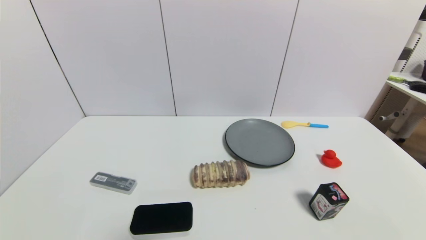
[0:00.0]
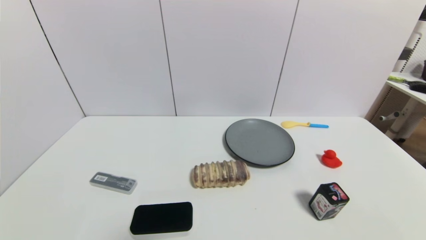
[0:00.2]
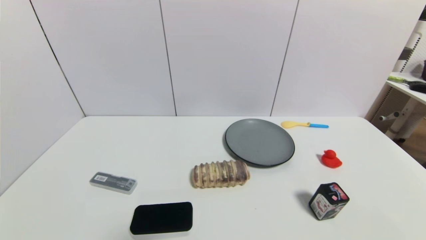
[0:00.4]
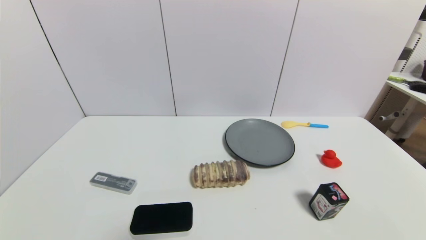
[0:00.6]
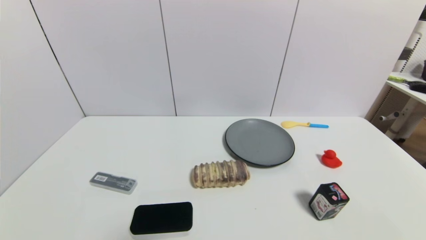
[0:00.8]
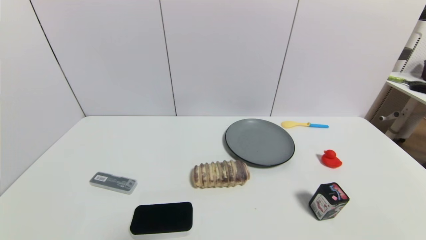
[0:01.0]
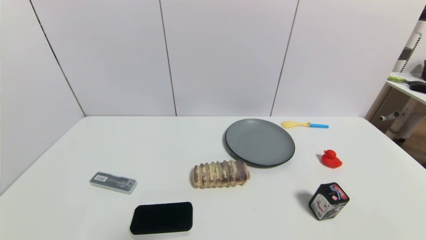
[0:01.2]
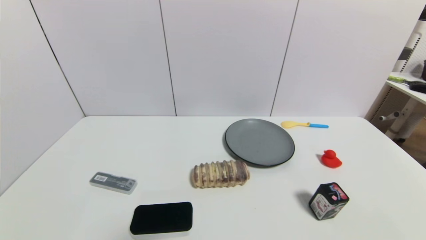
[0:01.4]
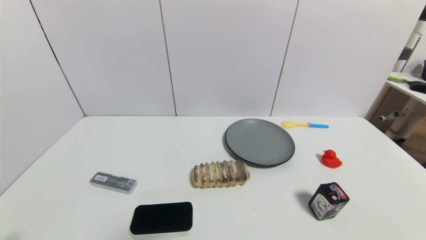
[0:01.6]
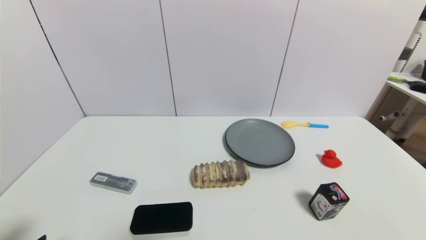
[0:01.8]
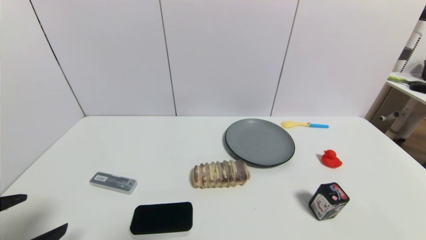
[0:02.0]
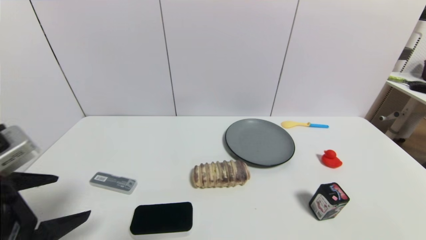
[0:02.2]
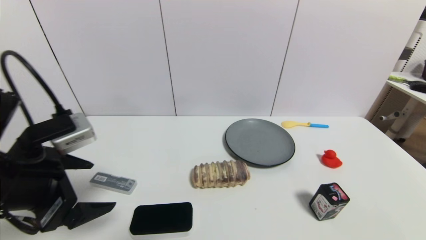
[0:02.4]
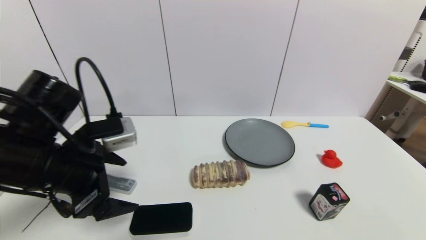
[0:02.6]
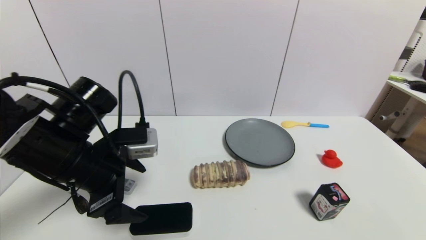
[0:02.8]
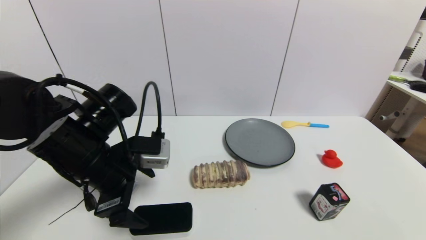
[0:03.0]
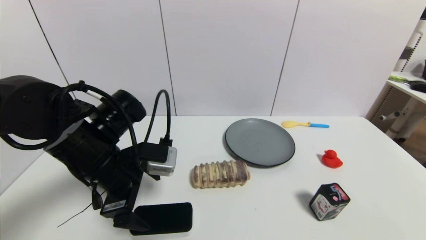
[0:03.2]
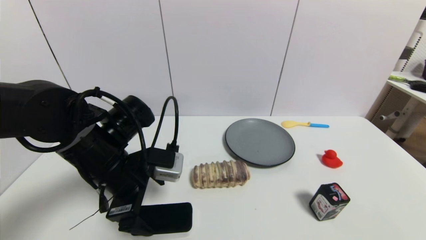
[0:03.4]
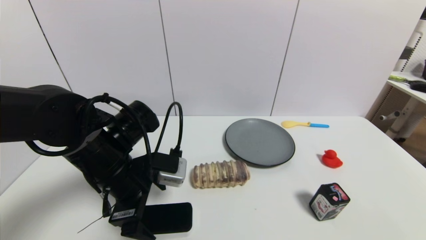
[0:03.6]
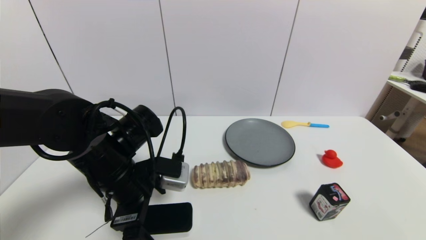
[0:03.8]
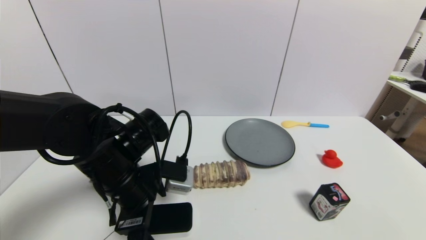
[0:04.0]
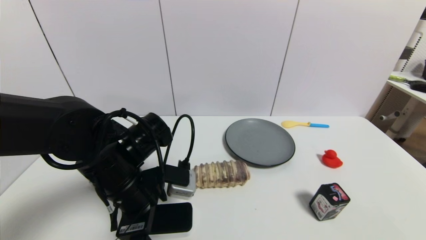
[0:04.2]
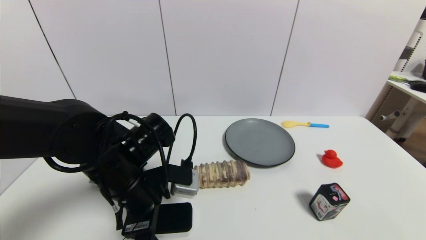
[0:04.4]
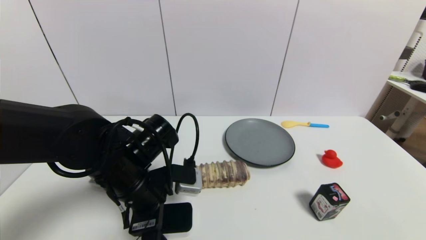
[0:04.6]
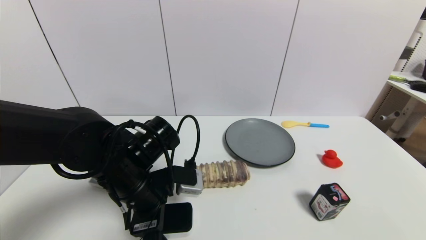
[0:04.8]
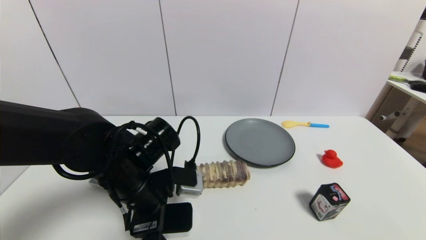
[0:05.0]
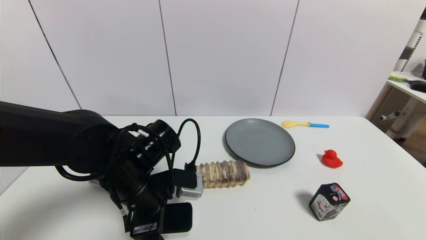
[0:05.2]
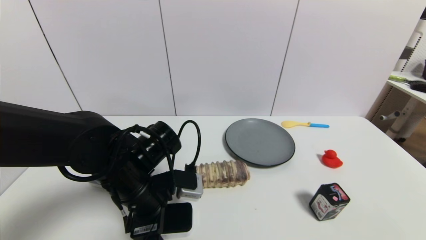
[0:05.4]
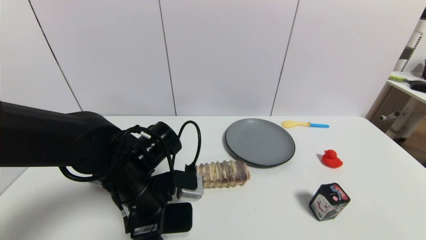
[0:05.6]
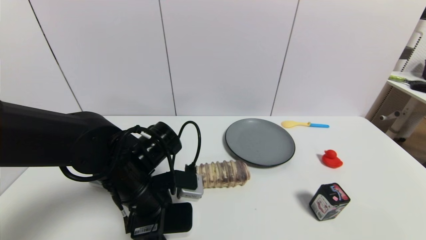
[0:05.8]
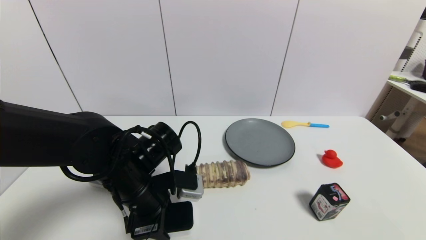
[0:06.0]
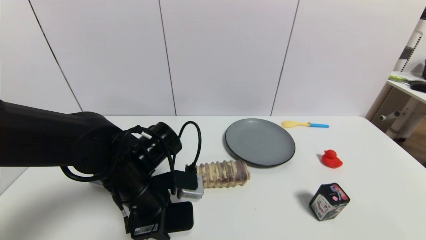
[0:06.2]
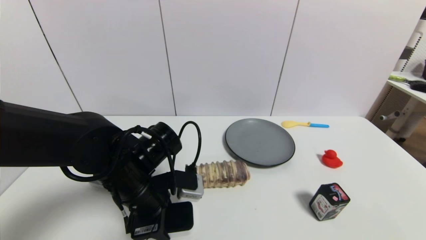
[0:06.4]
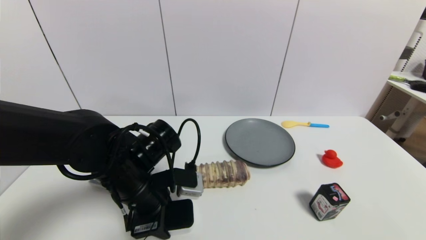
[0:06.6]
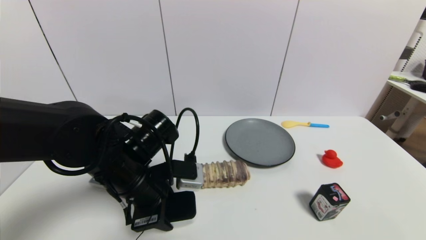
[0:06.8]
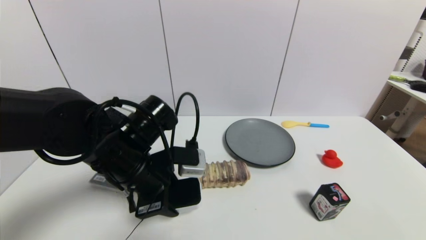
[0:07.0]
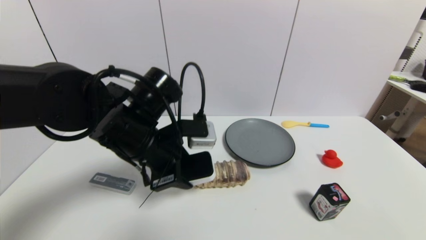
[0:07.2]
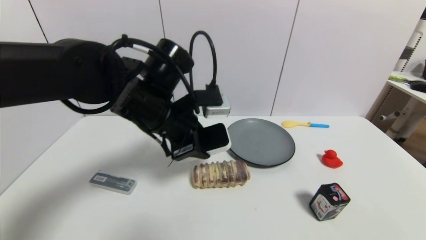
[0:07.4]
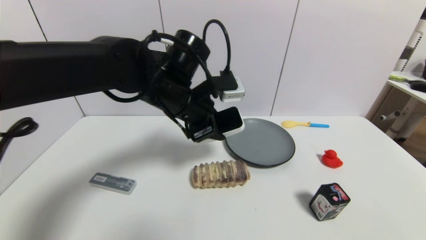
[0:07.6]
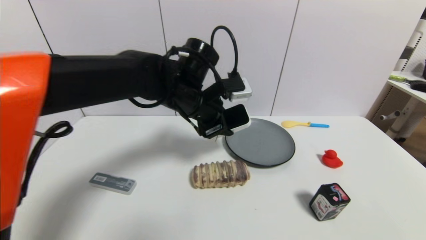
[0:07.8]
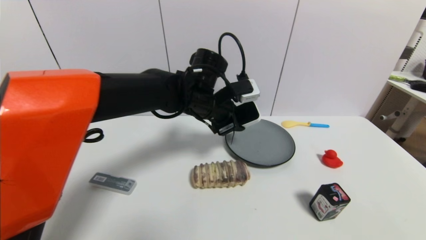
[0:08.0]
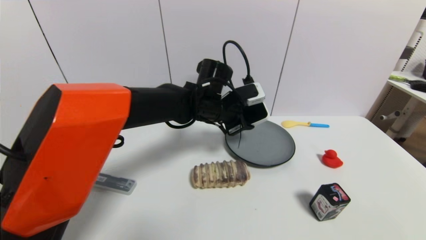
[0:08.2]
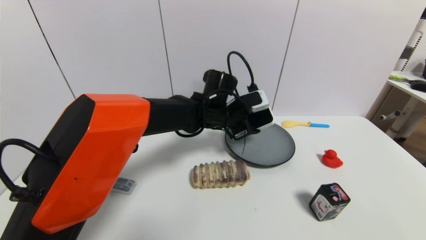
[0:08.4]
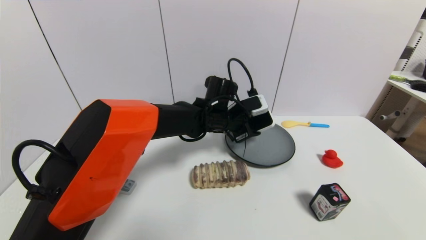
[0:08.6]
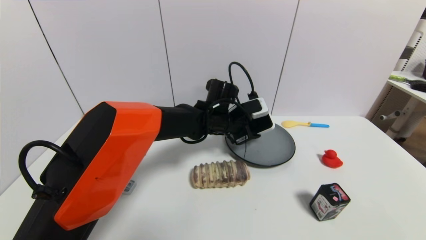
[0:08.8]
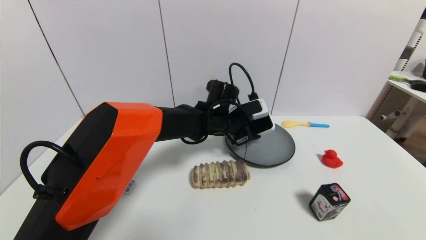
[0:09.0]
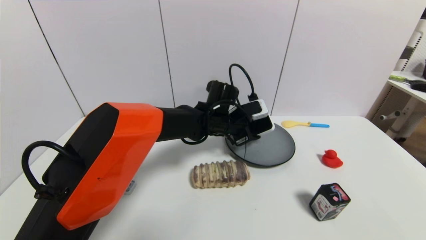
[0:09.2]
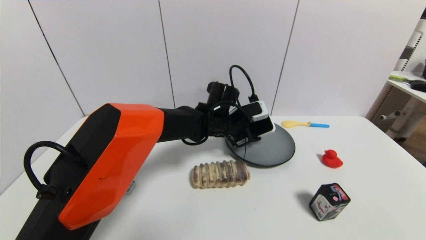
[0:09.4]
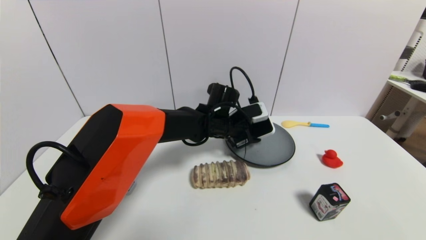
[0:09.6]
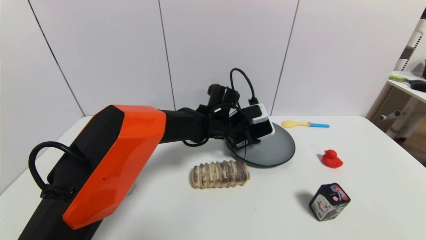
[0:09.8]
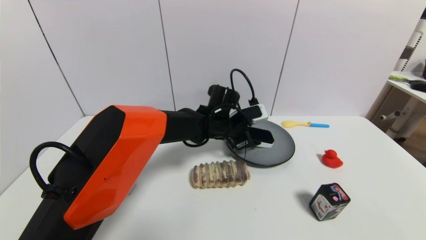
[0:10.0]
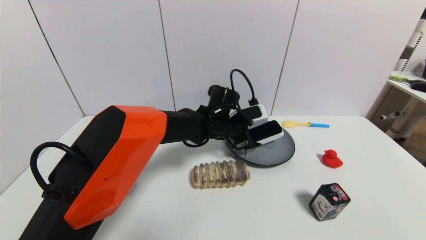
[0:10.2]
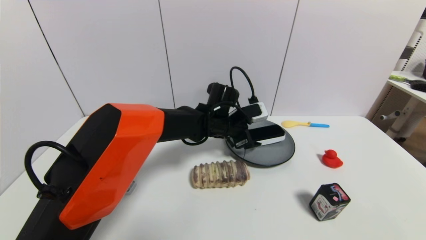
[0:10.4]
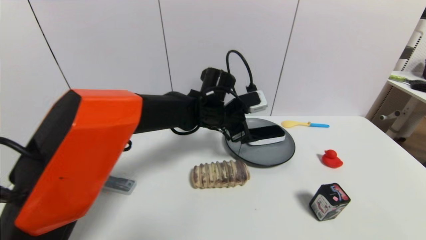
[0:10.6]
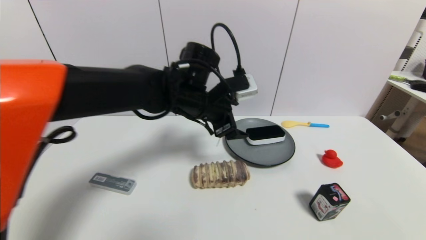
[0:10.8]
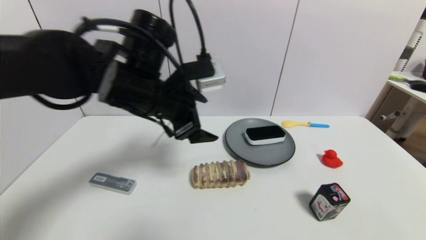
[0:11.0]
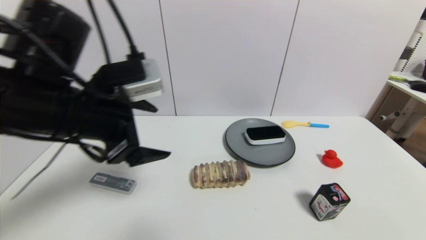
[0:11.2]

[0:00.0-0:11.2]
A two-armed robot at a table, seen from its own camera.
Task of the whole recording: use a gripper to pick the target object and place on the gray plate.
Step, 0:00.0 to 0:06.4: Grasp the blackboard erasure with the left gripper.
Step, 0:06.6 to 0:10.2: Place the blackboard erasure on the gray plate with the left gripper.
0:01.6 to 0:03.2: The left gripper is displaced forward and to the right by some 25 cm.
0:03.2 to 0:04.8: The left gripper moves about 5 cm.
0:04.8 to 0:06.4: The left gripper closes its fingers.
0:06.4 to 0:08.0: The left gripper moves forward, to the right and upward, about 20 cm.
0:08.0 to 0:09.6: The left gripper is displaced downward by roughly 5 cm.
0:09.6 to 0:11.2: The left gripper moves to the left, backward and upward, some 35 cm, and opens.

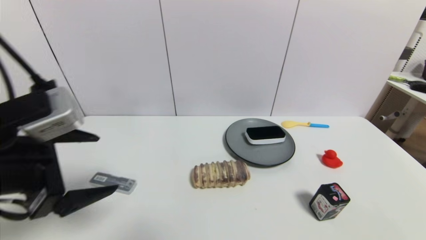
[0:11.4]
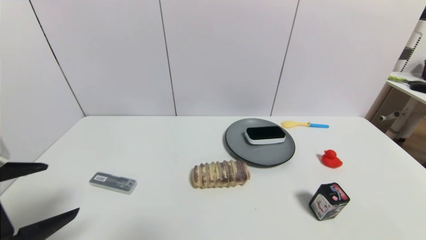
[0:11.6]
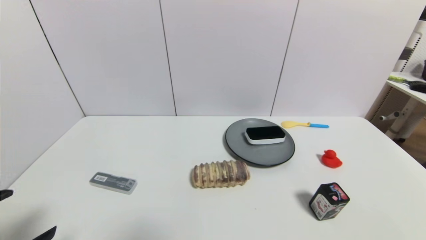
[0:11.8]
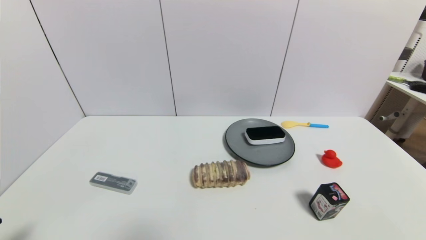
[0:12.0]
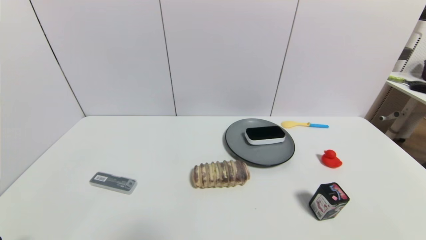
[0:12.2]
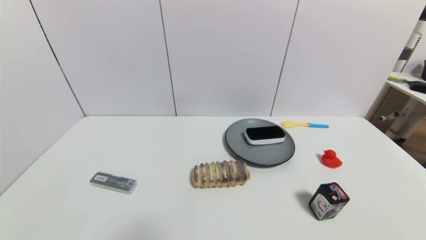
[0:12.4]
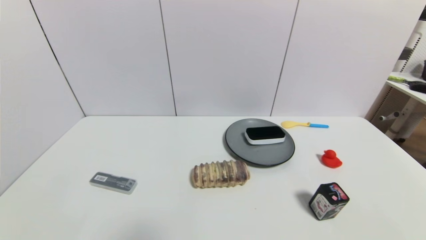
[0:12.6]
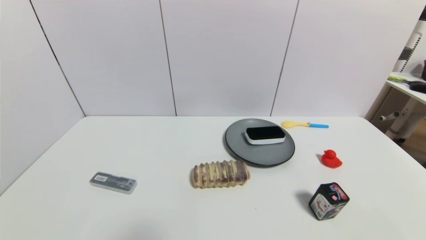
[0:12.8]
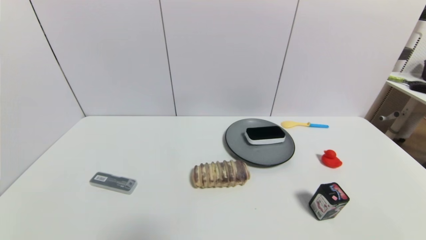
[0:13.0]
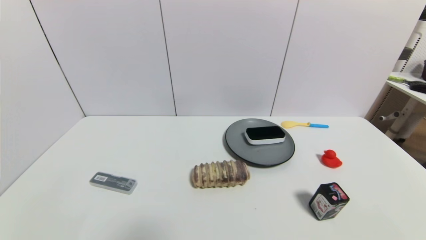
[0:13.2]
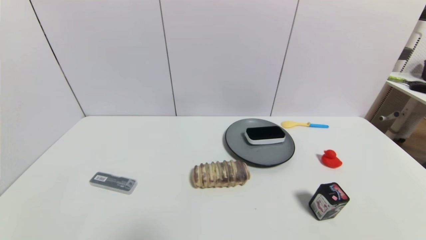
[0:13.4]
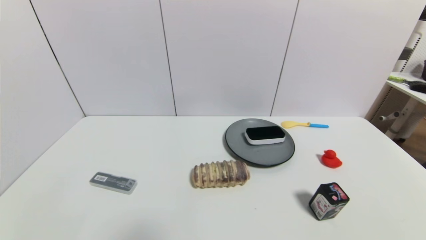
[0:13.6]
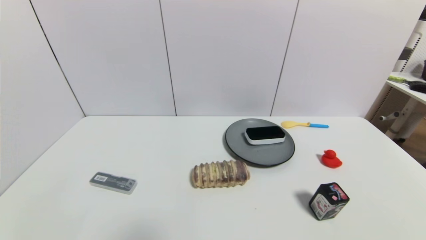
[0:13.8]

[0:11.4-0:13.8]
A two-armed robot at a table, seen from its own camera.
Task of the whole recording: use a gripper to pick the target object and place on the gray plate.
0:11.4 to 0:12.6: The left gripper goes approximately 25 cm downward and backward.
0:12.6 to 0:13.8: The two grippers keep their place.
